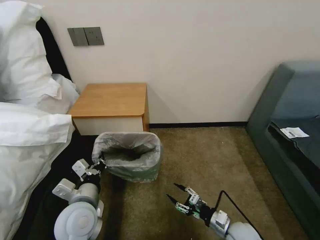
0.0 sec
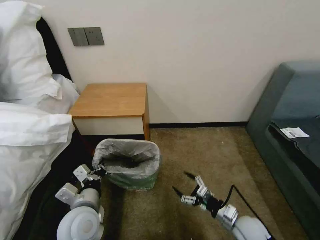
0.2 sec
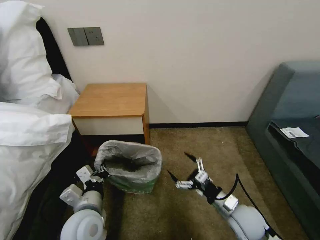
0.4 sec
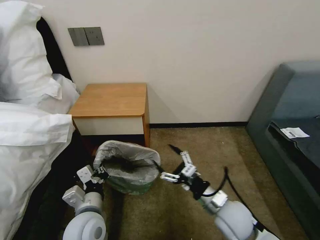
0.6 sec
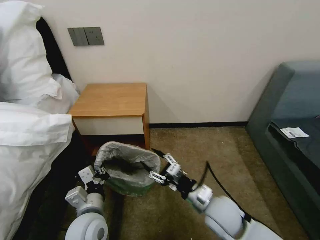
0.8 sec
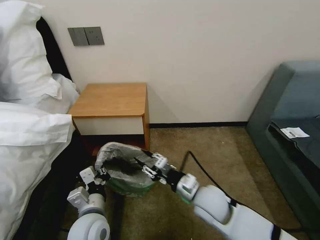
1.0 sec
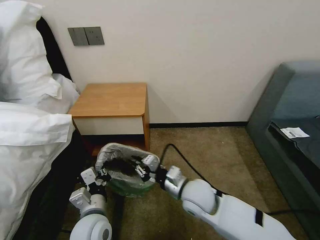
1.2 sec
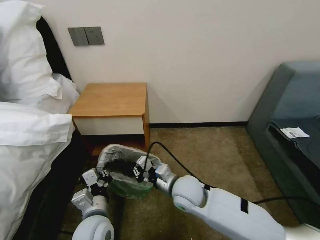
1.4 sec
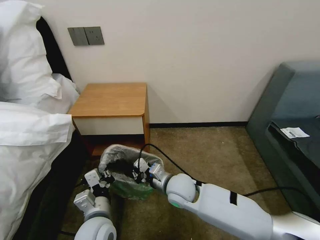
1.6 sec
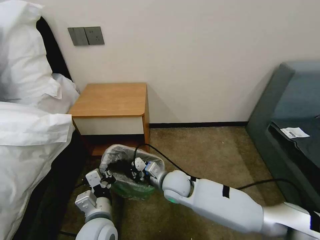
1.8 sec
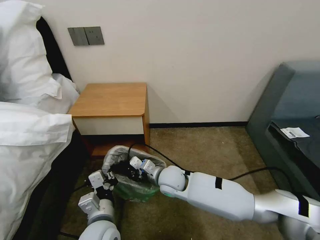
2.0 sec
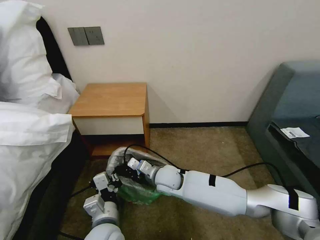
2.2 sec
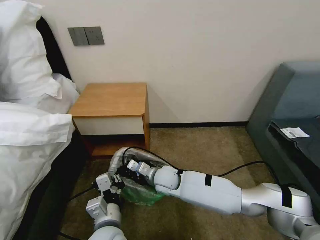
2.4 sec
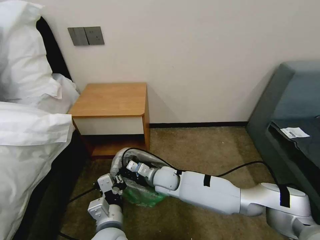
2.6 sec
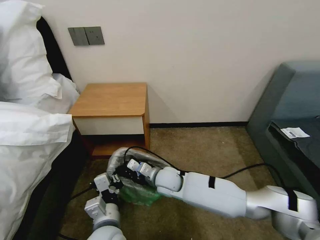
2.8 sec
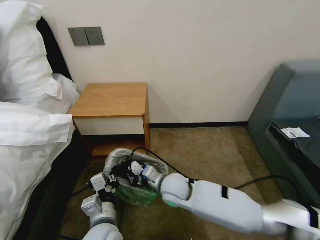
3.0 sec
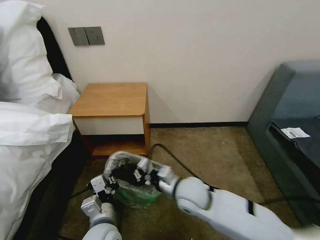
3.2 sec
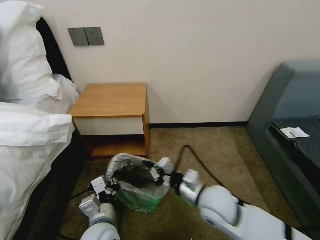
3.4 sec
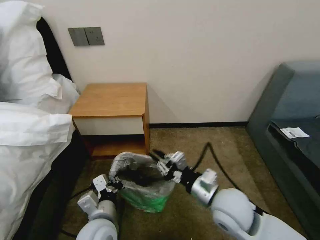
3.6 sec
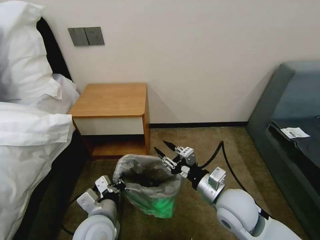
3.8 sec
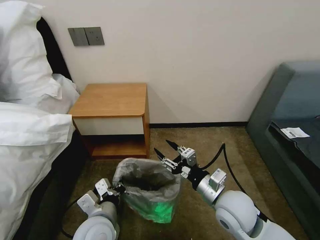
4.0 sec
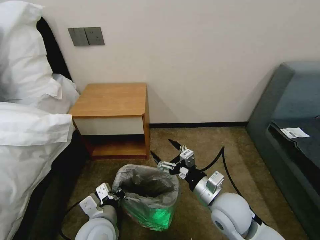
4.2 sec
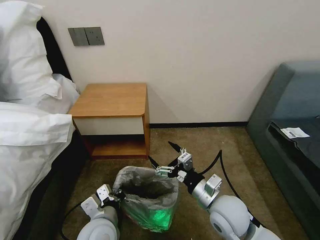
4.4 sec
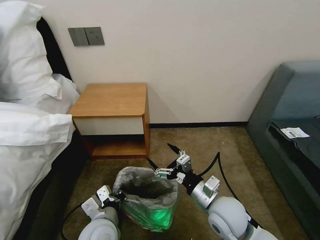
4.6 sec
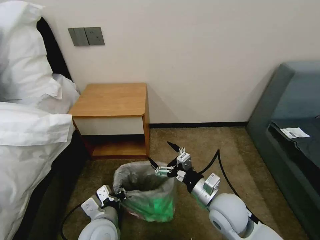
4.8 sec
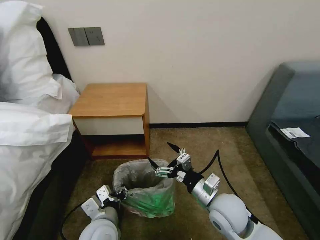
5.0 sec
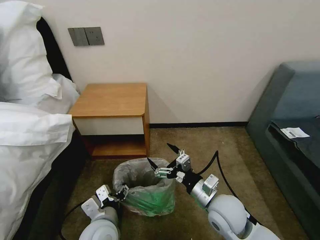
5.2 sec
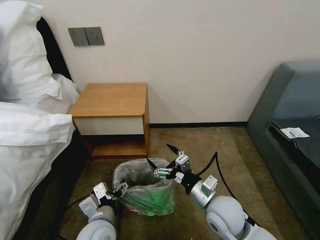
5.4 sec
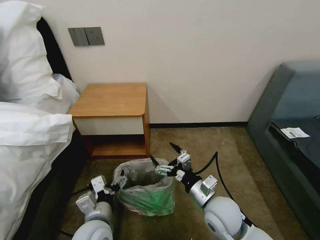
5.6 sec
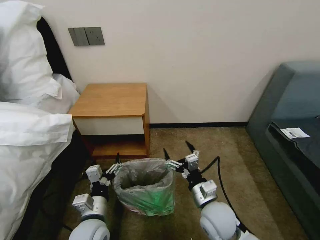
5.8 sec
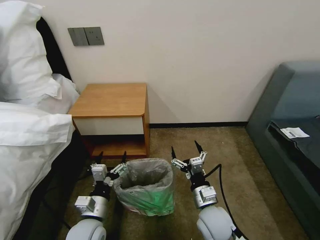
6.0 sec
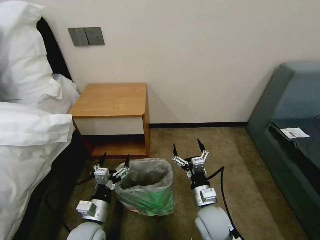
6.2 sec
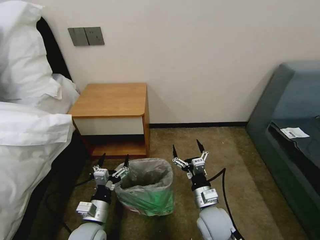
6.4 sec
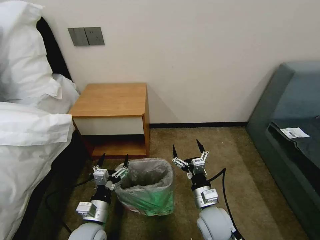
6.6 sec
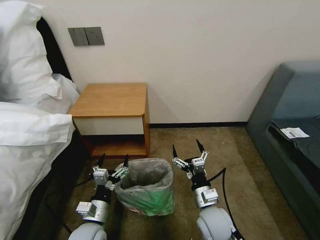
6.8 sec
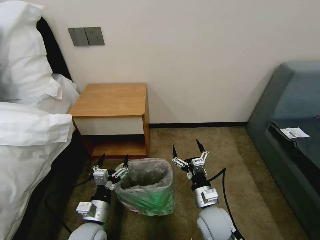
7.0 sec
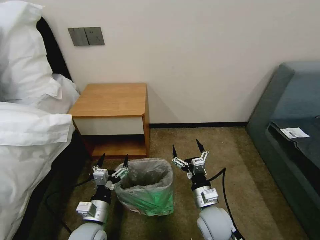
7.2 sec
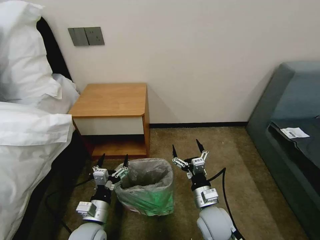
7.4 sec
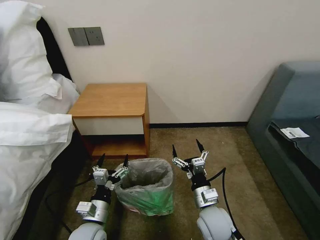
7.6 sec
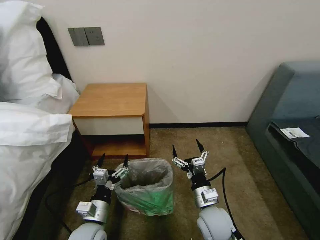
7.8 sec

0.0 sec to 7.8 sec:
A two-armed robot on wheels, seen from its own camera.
Task of the whole recording: Pick up the garbage bag from the table and place it over the trash can.
0.0 sec to 1.6 sec: The right gripper is displaced to the left, upward and forward by about 25 cm, and closes its fingers. The left gripper shifts by about 5 cm.
1.6 sec to 3.2 sec: The right gripper travels forward and back again, some 5 cm each way.
3.2 sec to 4.6 sec: The right gripper heads to the right and backward, covering approximately 10 cm, and opens its fingers.
4.6 sec to 6.2 sec: The right gripper is displaced downward by roughly 5 cm. The left gripper heads downward and to the left, covering some 10 cm, and opens.
6.2 sec to 7.8 sec: Both grippers stay about where they are.

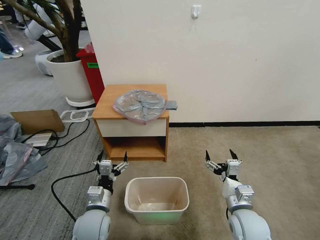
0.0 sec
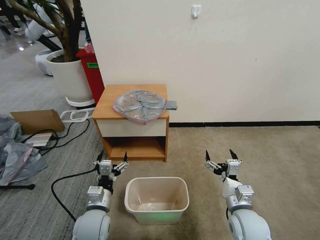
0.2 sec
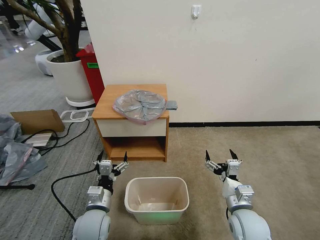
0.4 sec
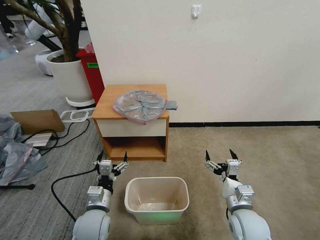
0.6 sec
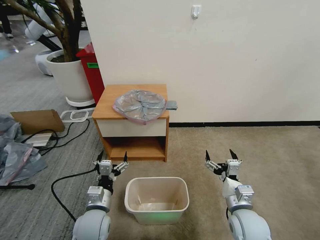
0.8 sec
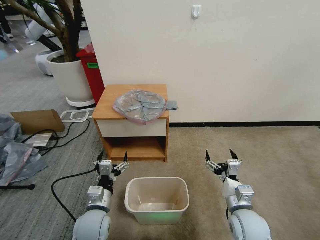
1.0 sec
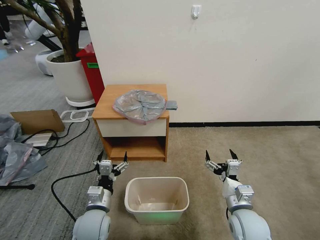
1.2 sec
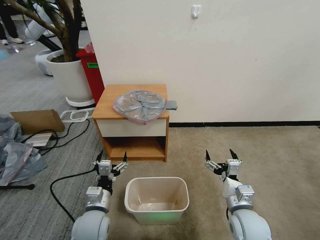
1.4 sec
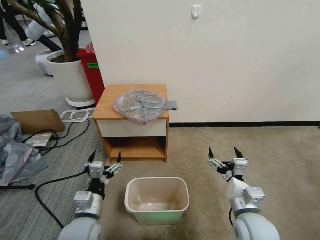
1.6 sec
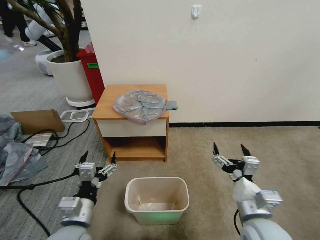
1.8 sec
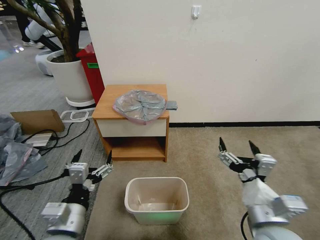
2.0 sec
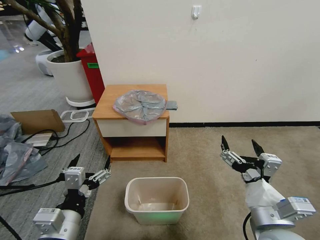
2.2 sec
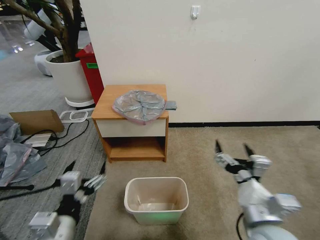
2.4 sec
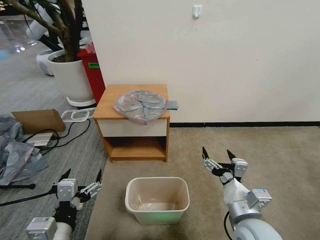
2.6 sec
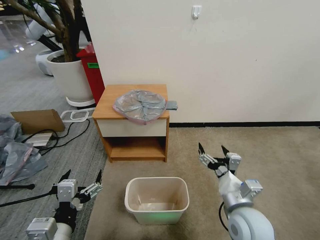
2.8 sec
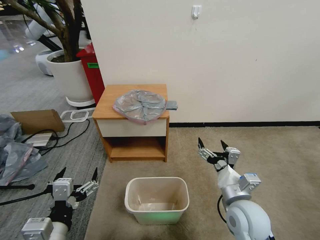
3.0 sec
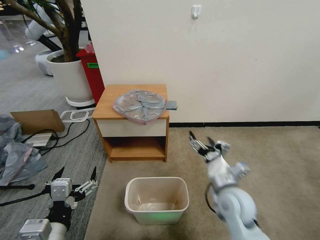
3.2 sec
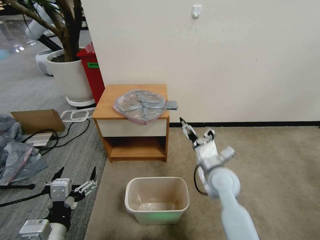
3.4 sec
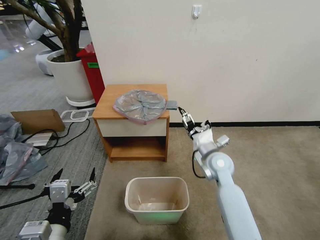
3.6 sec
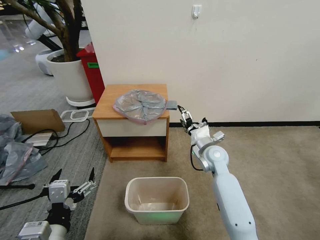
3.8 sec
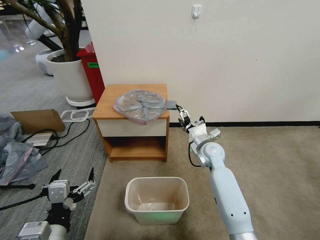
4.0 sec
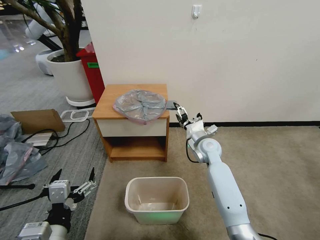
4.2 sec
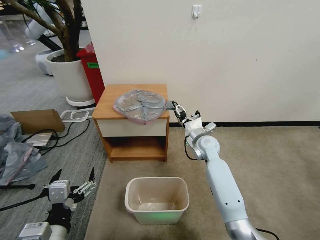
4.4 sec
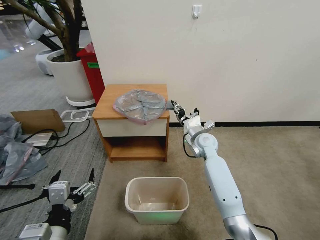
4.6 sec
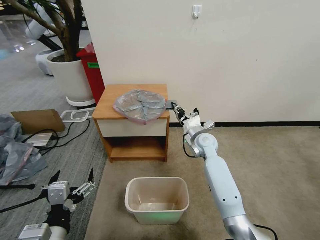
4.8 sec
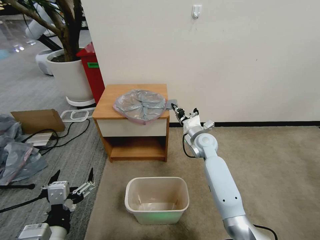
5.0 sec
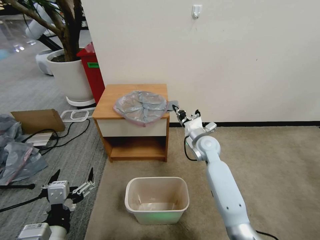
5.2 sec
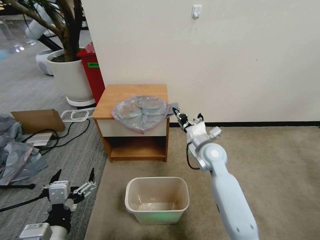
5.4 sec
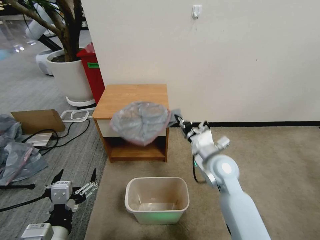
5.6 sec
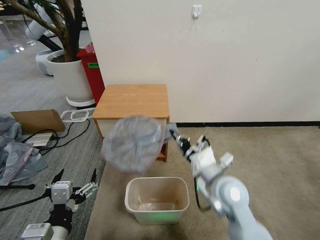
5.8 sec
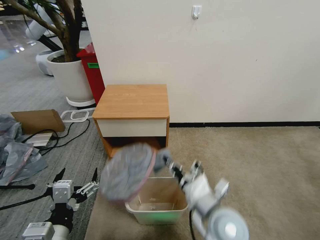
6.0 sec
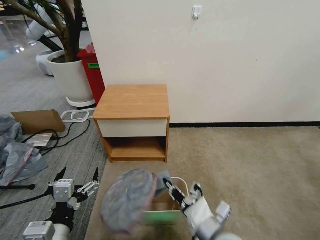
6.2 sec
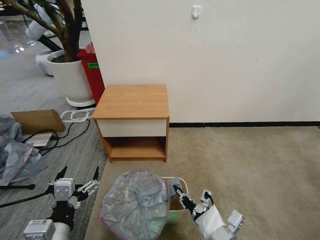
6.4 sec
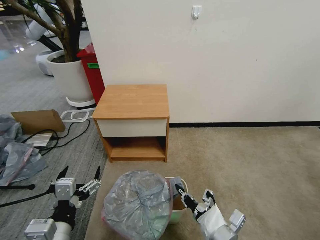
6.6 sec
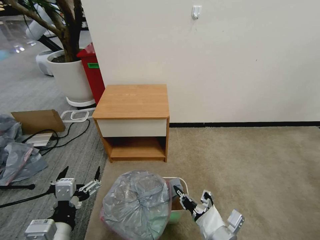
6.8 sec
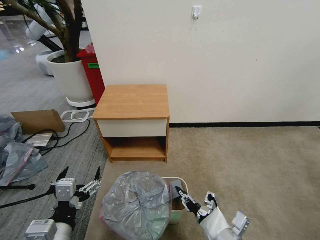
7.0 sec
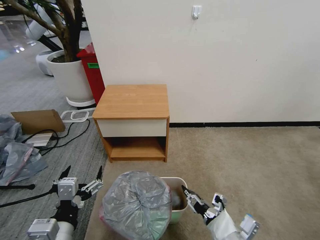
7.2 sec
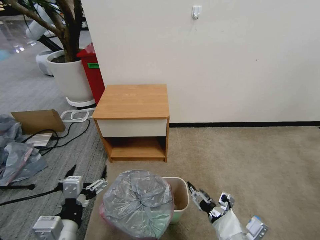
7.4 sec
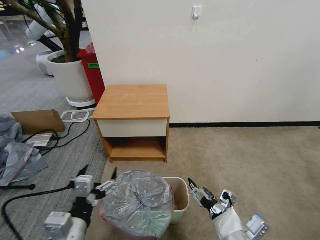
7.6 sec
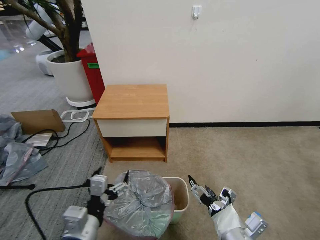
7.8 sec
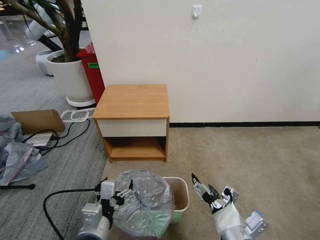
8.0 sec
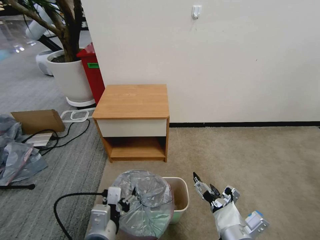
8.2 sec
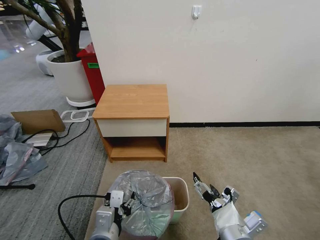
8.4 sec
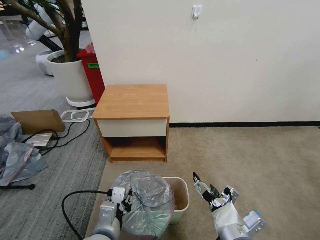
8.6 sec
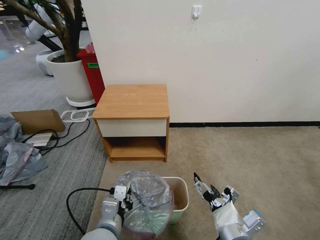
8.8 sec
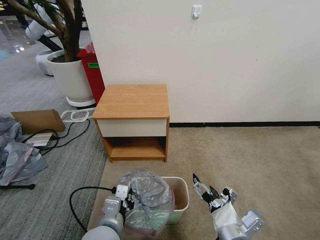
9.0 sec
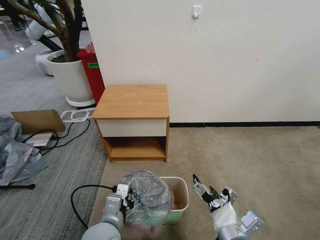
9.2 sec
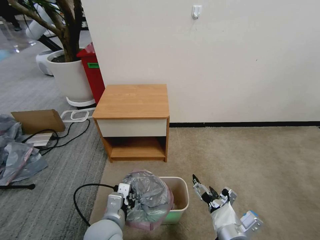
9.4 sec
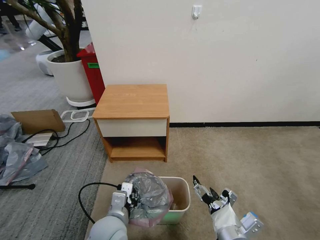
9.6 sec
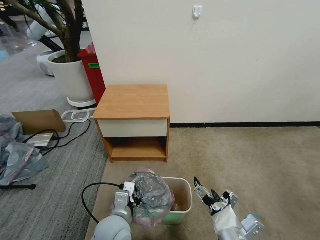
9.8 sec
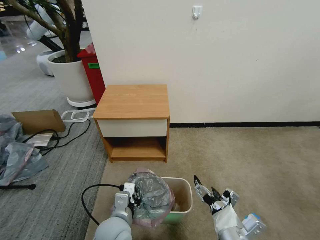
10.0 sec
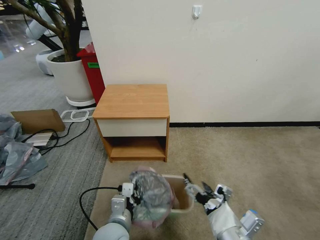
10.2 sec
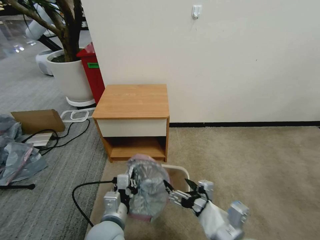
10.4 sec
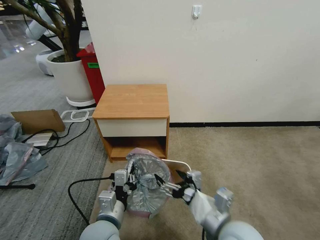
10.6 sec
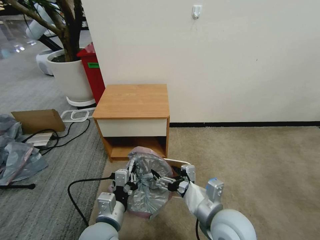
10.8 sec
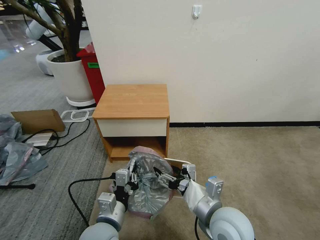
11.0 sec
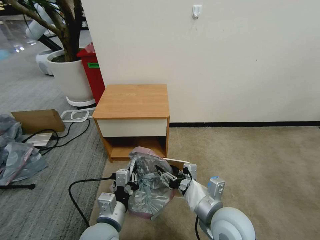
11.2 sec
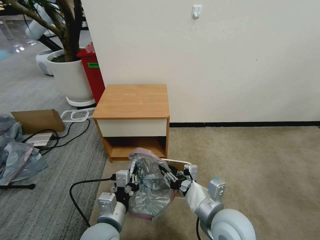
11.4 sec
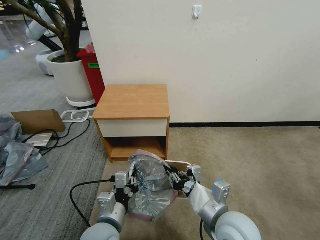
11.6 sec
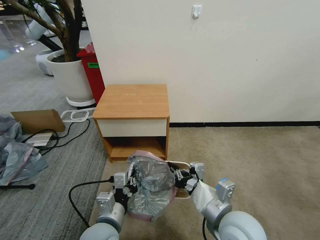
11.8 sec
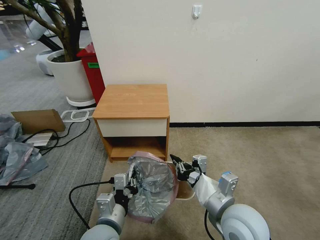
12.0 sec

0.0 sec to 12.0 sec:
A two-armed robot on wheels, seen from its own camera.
Task of the whole recording: Pick up the garbage bag from the table and place it over the trash can.
1.6 sec to 3.0 sec: The right gripper goes upward and returns, about 10 cm each way, while the left gripper moves upward and backward, roughly 15 cm.
3.0 sec to 4.4 sec: The right gripper goes roughly 25 cm forward.
4.4 sec to 6.0 sec: The right gripper travels backward by roughly 25 cm, and closes.
6.0 sec to 7.6 sec: The right gripper goes some 10 cm backward, and opens up.
7.6 sec to 9.0 sec: The left gripper shifts some 10 cm downward, to the right and forward, and closes.
10.4 sec to 12.0 sec: The right gripper heads forward, covering approximately 5 cm, and closes up.

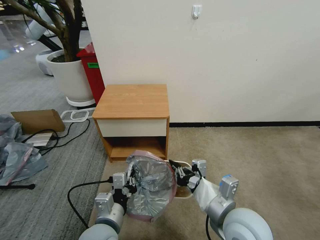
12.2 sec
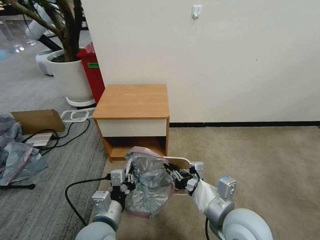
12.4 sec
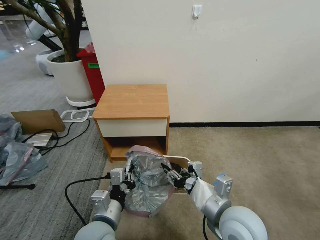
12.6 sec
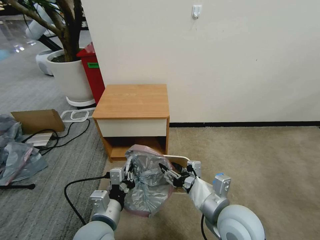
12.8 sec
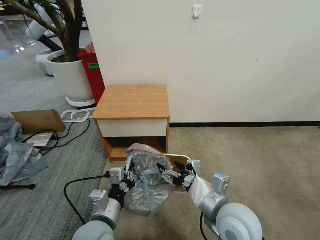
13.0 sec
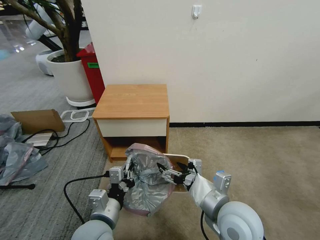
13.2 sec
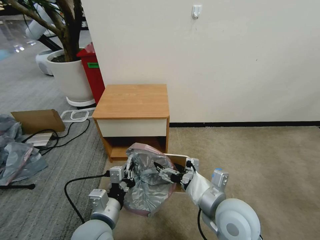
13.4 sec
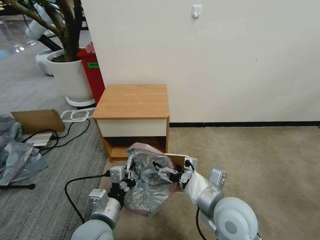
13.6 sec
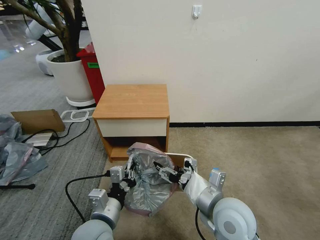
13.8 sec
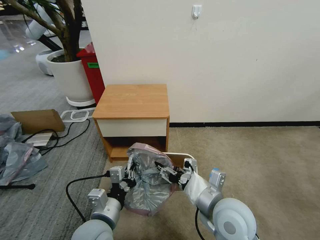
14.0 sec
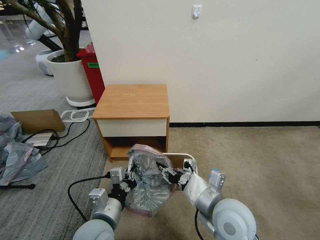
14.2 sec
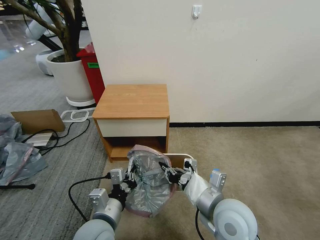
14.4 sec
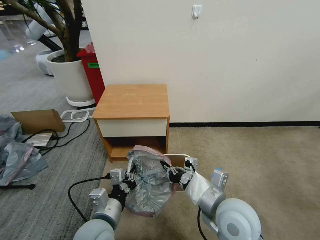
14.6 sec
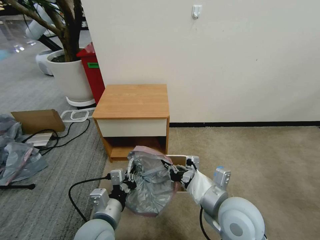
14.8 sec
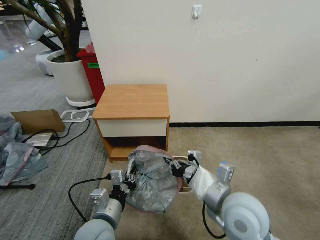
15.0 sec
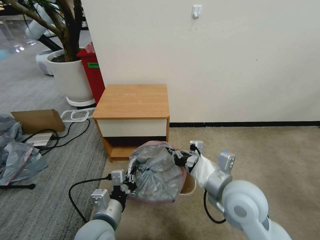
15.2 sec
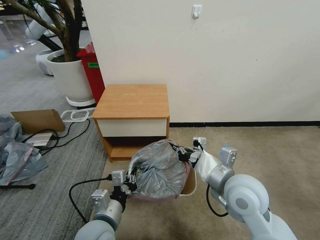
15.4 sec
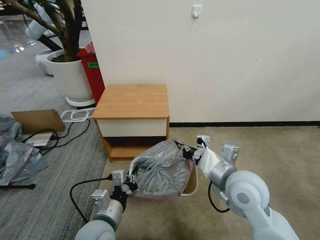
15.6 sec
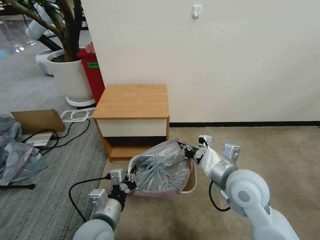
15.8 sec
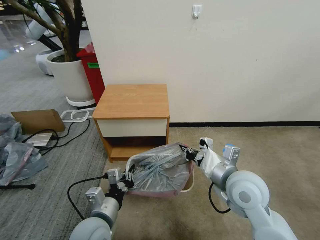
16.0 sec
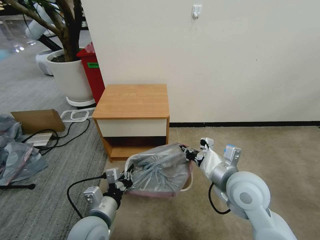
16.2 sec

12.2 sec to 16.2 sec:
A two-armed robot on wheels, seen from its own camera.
Task of the whole recording: Pick up the garbage bag from the table and place it over the trash can.
12.2 sec to 13.6 sec: The right gripper opens.
13.6 sec to 14.8 sec: The right gripper closes.
14.8 sec to 16.2 sec: The right gripper heads forward, covering approximately 5 cm.
